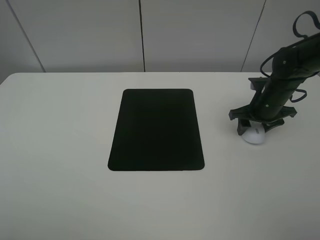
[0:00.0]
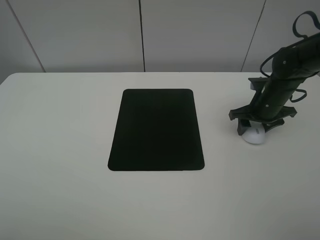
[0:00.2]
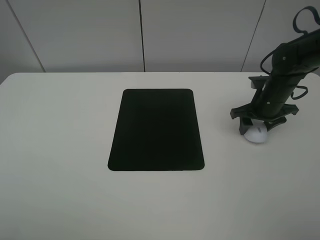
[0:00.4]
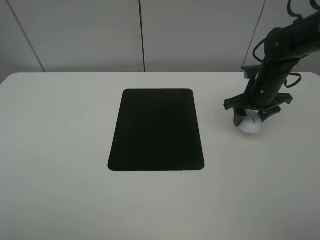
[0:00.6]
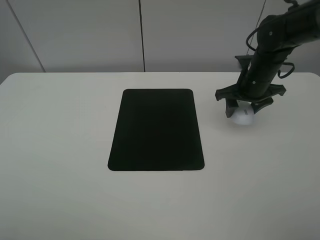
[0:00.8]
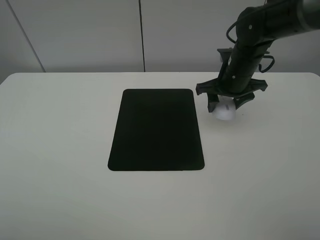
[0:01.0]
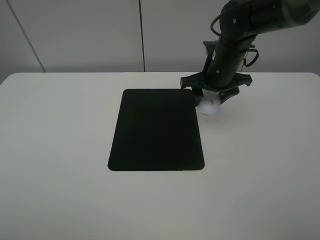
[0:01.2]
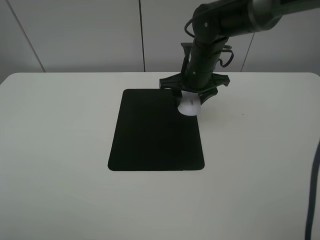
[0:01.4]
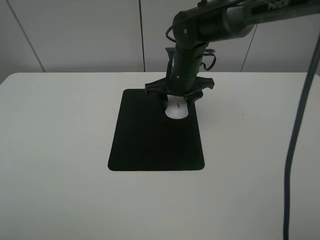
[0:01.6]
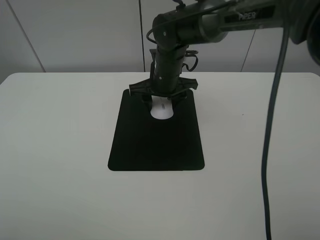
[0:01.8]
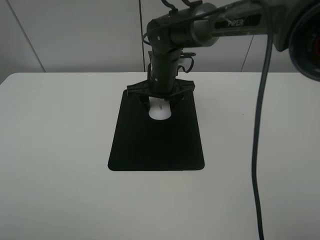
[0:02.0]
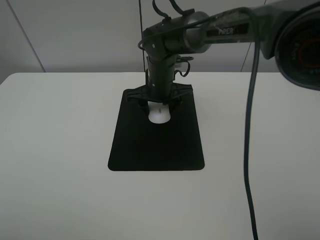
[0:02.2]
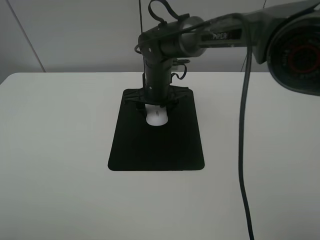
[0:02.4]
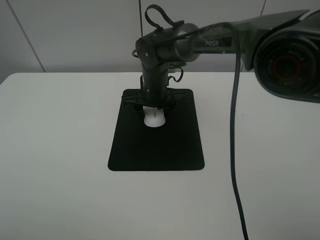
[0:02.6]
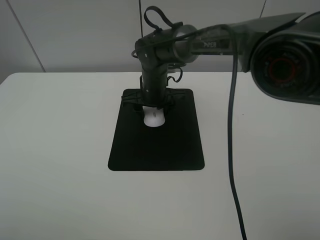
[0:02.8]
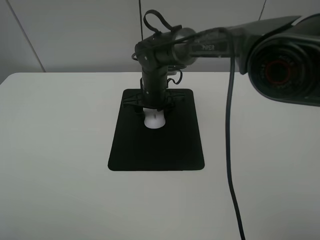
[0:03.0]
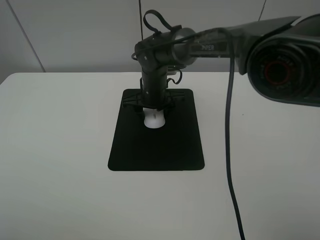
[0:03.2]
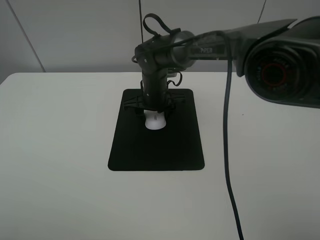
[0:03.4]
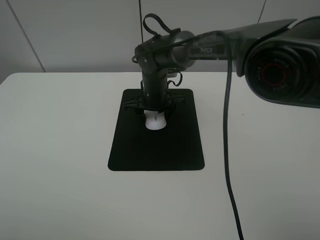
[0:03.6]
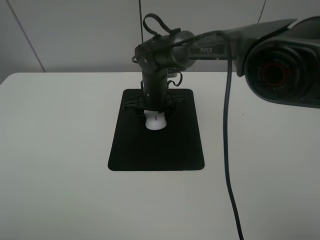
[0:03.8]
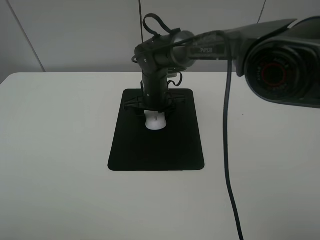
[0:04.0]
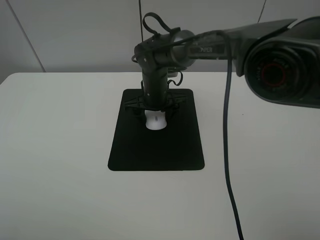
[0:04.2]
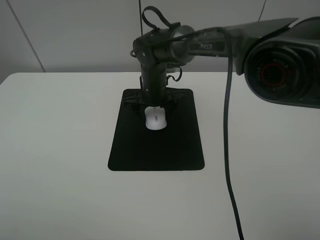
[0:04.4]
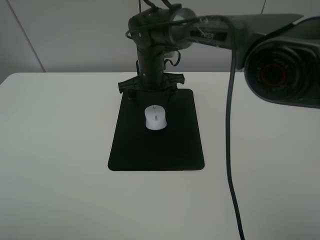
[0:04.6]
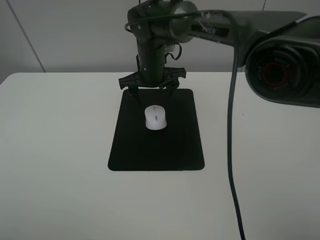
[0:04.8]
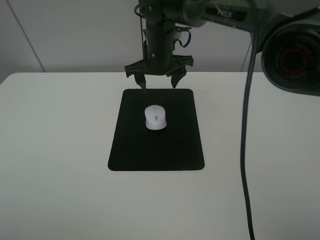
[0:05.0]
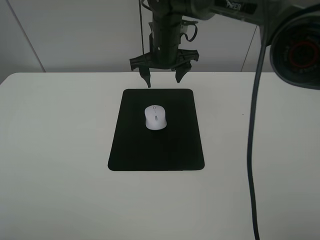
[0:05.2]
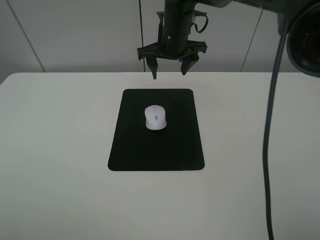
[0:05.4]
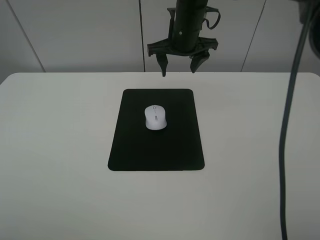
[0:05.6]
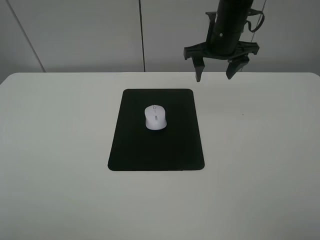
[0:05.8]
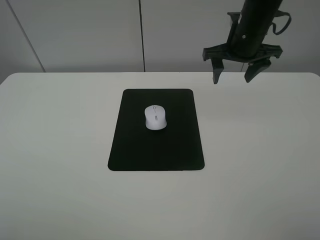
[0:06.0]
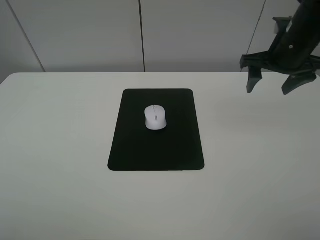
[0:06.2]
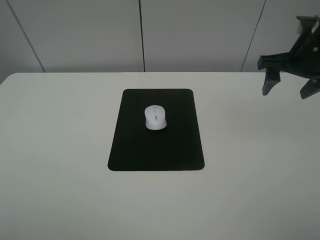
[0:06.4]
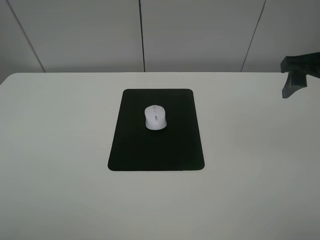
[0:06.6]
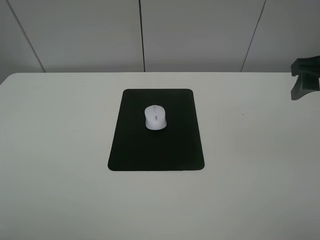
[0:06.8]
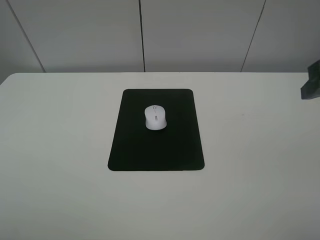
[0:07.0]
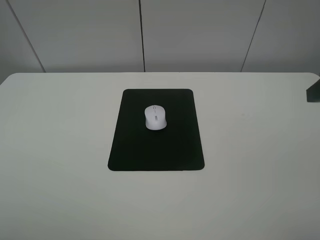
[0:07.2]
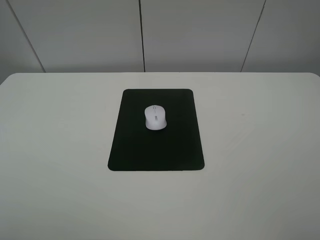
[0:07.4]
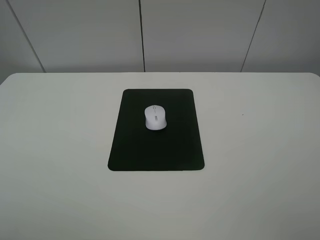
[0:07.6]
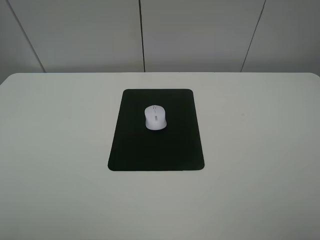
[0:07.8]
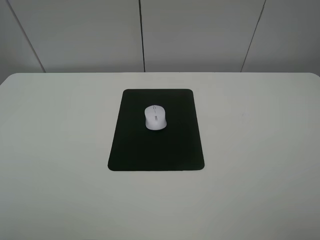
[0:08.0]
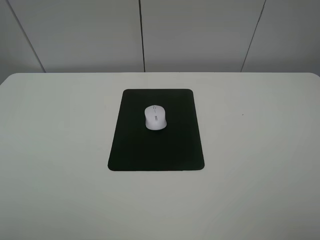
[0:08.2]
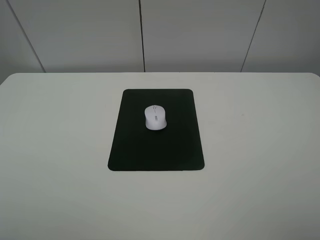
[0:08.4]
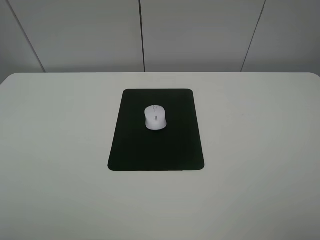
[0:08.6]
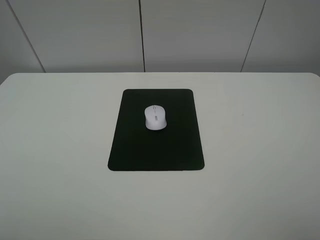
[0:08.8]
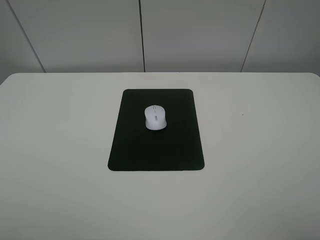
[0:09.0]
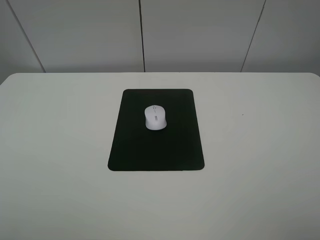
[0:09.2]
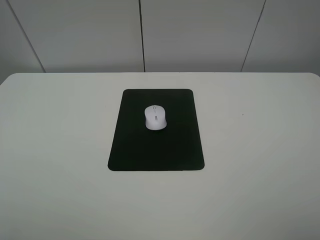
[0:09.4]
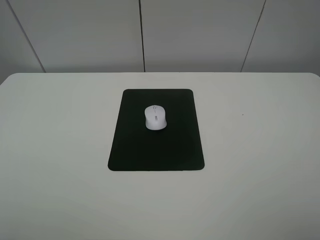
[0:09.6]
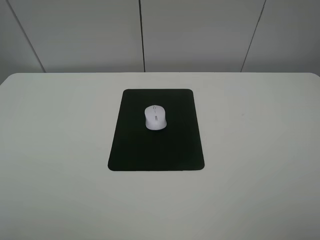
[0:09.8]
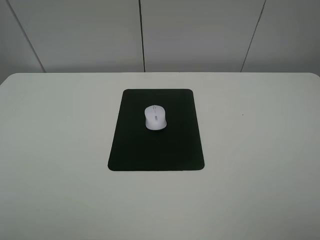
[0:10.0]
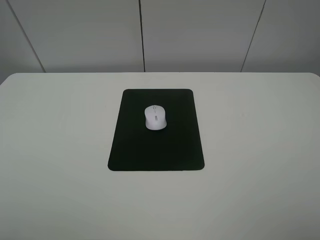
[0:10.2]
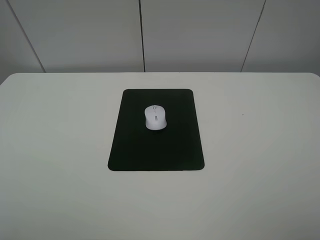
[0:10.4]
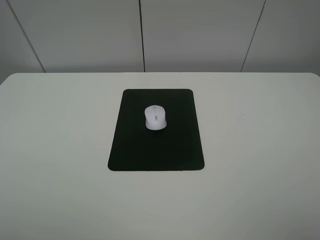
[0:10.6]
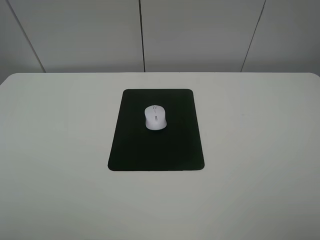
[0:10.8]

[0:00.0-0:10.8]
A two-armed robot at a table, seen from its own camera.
Step, 0:00.0 to 0:04.0: Place the mouse on the mouse mat with the right gripper.
0:00.0 to 0:01.6: The right gripper moves to the left, some 20 cm.
0:01.6 to 0:03.0: The right gripper goes roughly 10 cm to the left and downward.
0:03.0 to 0:04.6: The right gripper opens.
0:04.6 to 0:06.2: The right gripper shifts approximately 25 cm to the right.
0:06.2 to 0:07.8: The right gripper heads backward, covering about 30 cm.
